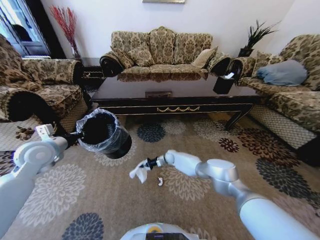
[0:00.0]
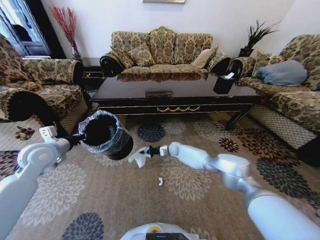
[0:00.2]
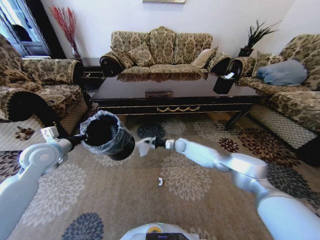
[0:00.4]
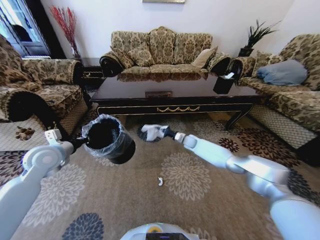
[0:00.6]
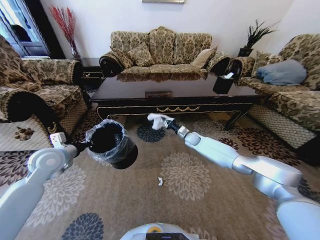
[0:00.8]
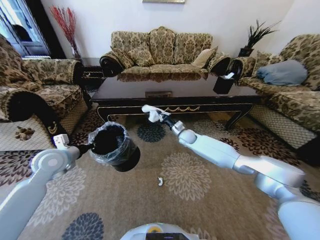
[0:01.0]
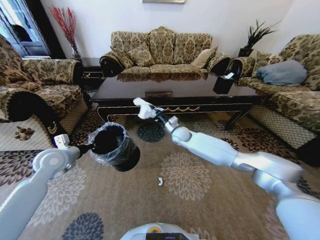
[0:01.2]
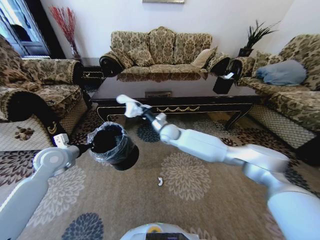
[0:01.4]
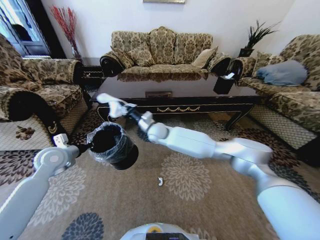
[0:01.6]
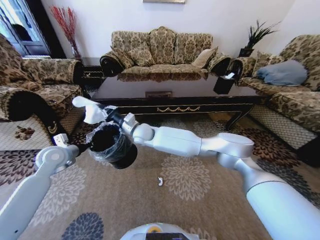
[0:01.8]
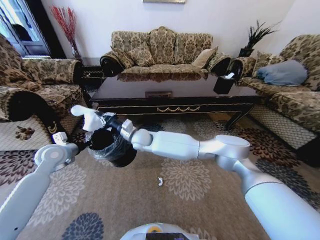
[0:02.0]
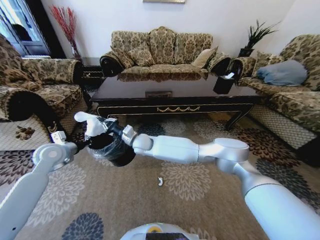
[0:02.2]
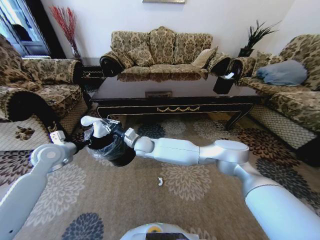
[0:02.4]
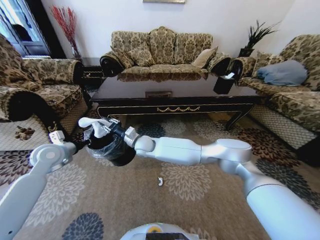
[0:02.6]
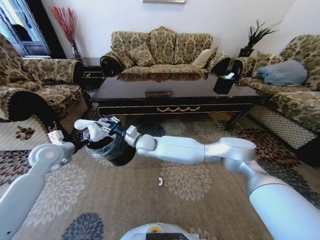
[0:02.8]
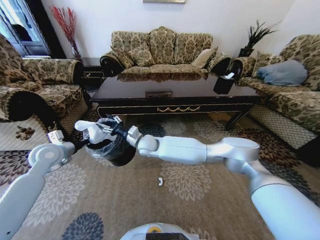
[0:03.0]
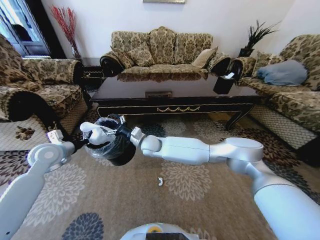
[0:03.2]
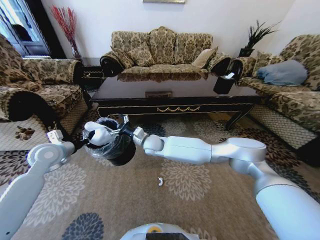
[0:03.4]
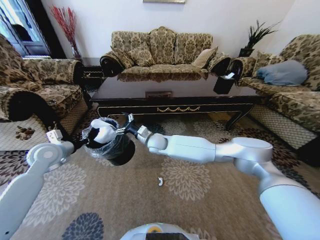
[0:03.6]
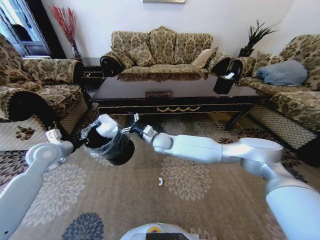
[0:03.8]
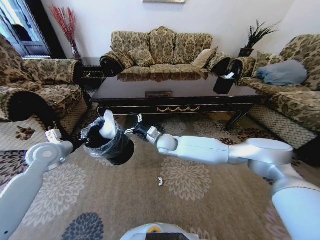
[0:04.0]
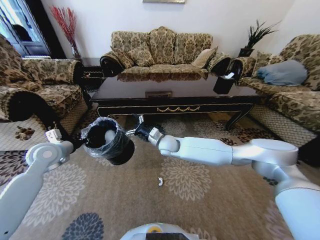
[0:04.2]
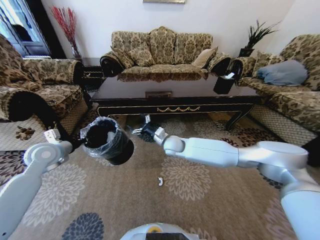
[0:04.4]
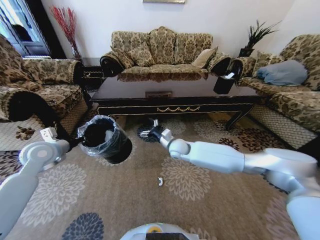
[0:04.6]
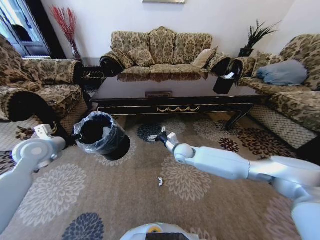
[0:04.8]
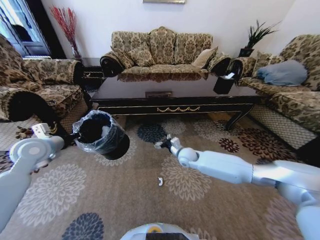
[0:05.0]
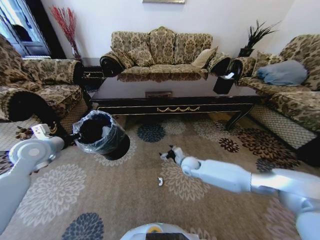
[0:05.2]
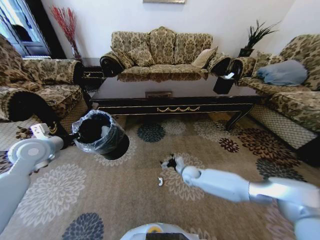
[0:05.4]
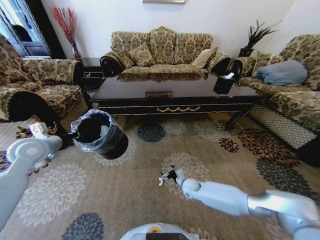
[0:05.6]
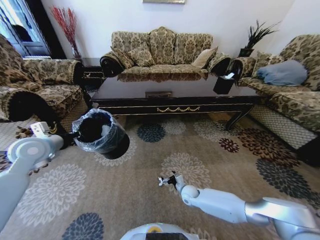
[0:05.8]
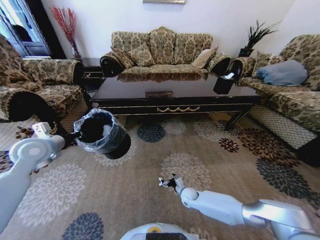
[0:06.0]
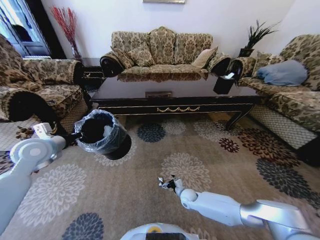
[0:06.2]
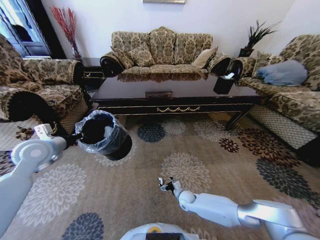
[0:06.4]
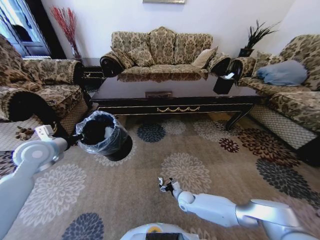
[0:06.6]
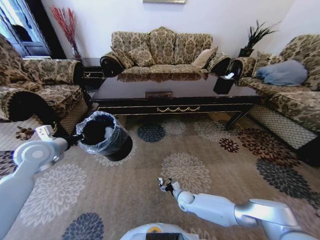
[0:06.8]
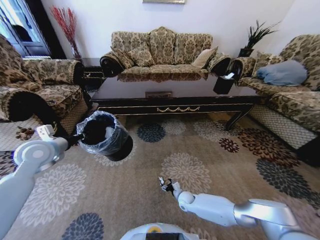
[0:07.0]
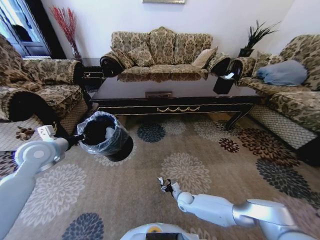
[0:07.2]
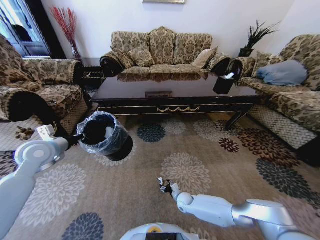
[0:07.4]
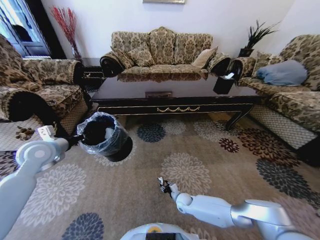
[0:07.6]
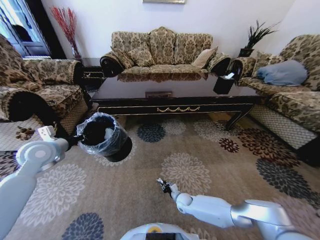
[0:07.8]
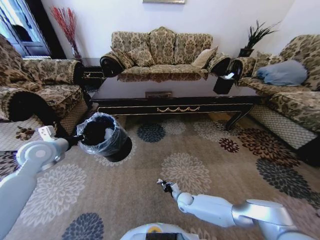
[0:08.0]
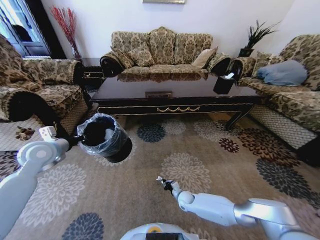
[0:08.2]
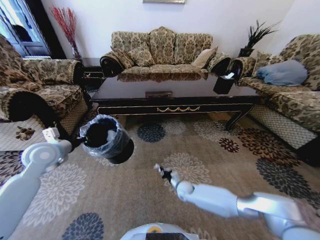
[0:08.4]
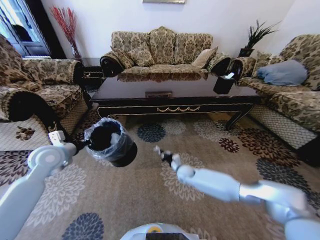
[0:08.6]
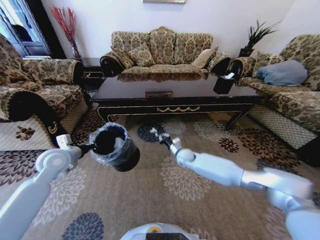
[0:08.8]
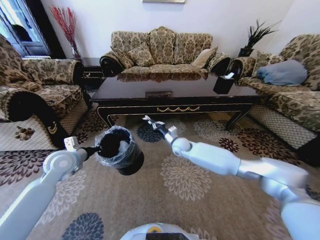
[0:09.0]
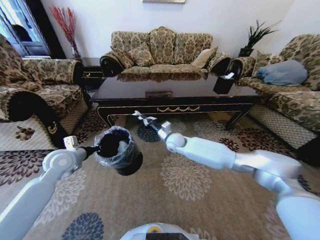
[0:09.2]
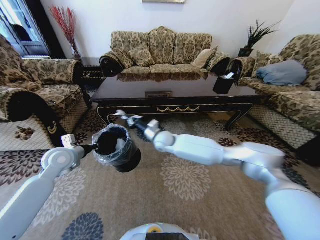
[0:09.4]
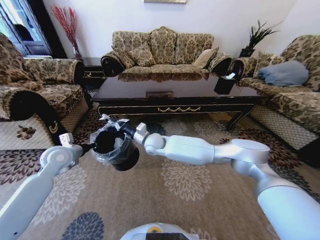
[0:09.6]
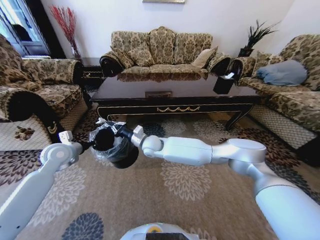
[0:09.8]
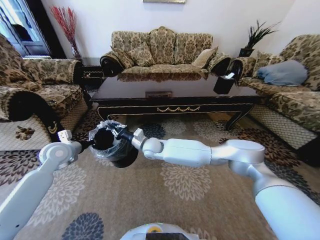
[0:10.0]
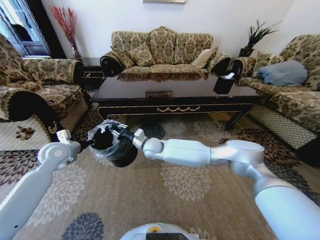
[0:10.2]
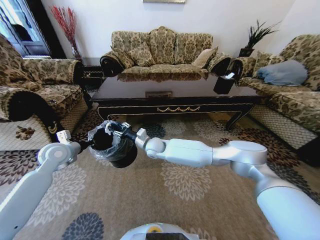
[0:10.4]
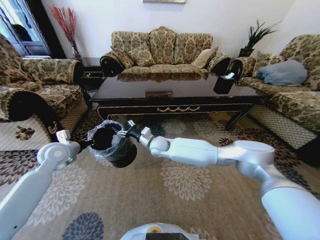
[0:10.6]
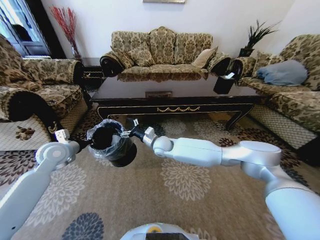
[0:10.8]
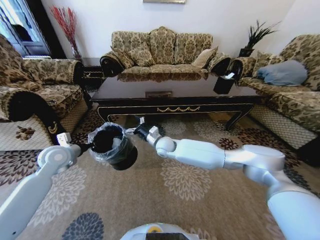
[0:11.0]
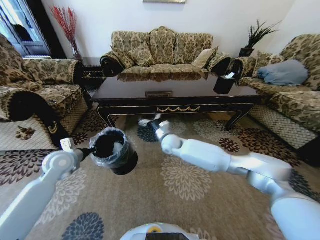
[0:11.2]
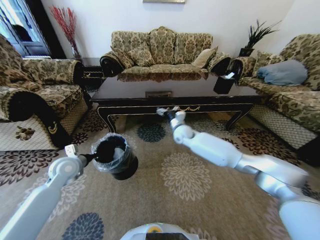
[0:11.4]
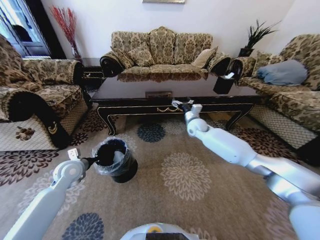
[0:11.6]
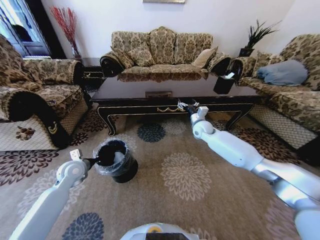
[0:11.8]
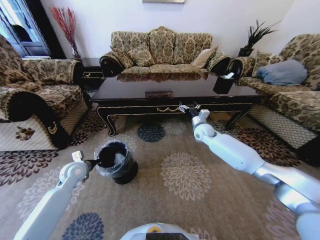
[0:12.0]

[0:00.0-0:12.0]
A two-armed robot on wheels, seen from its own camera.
Task of the whole recording: Move to the front of the table and pick up the trash from the floor, then place it into the trash bin.
0:00.0 to 0:01.6: The left gripper shifts by about 5 cm, while the right gripper travels upward and to the left by some 30 cm.
0:01.6 to 0:03.0: The right gripper travels backward by about 5 cm, and opens up.
0:03.0 to 0:04.4: The right gripper heads to the right, covering roughly 10 cm.
0:04.4 to 0:06.0: The right gripper travels downward and backward by about 30 cm.
0:06.0 to 0:07.6: The right gripper closes its fingers.
0:07.6 to 0:09.0: The right gripper goes about 35 cm upward and forward, and closes its fingers. Meanwhile the left gripper travels to the right by roughly 5 cm.
0:09.0 to 0:10.4: The right gripper goes approximately 15 cm to the left, and opens up.
0:10.4 to 0:12.0: The left gripper travels downward by about 10 cm; the right gripper shifts approximately 25 cm to the right, and opens its fingers.

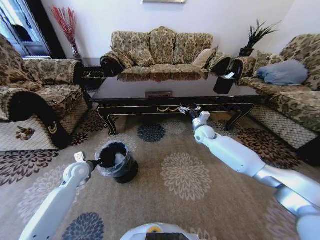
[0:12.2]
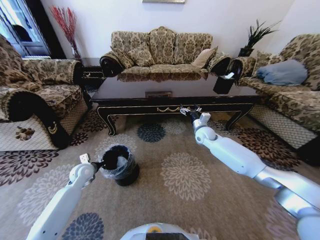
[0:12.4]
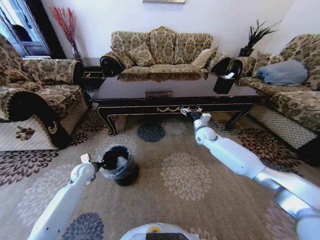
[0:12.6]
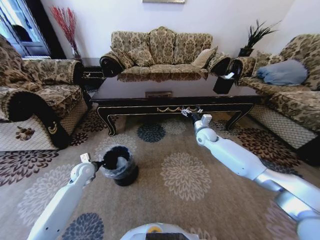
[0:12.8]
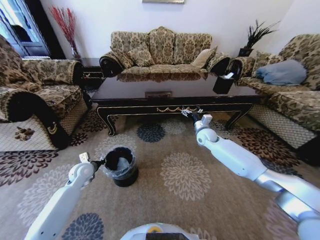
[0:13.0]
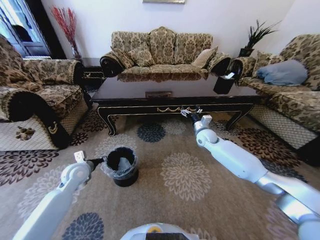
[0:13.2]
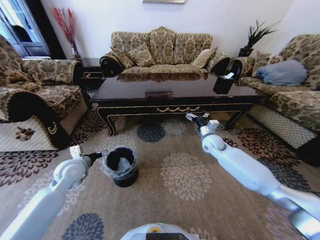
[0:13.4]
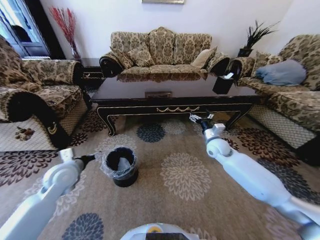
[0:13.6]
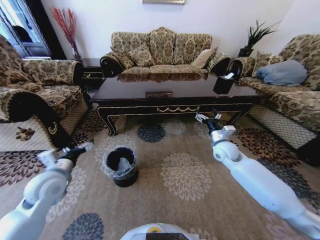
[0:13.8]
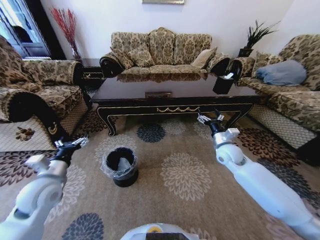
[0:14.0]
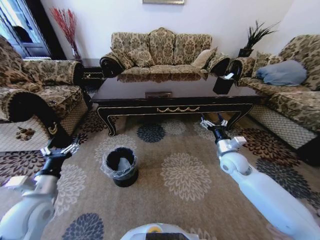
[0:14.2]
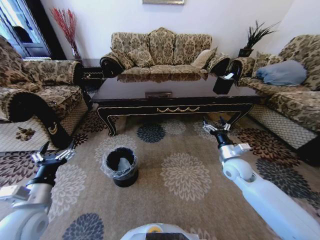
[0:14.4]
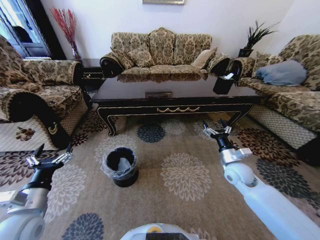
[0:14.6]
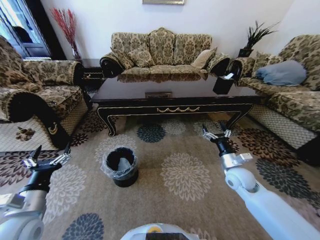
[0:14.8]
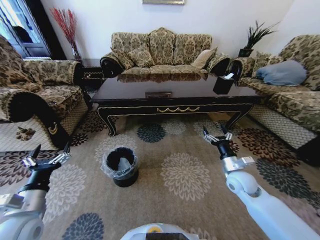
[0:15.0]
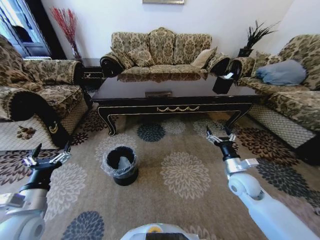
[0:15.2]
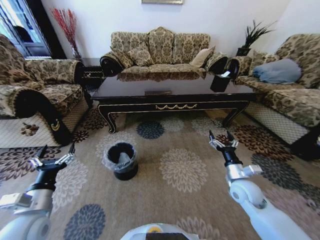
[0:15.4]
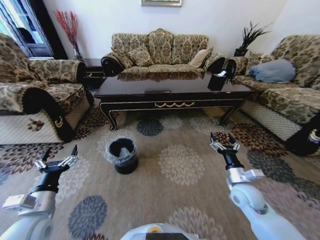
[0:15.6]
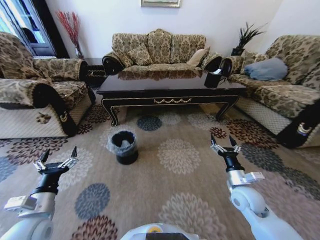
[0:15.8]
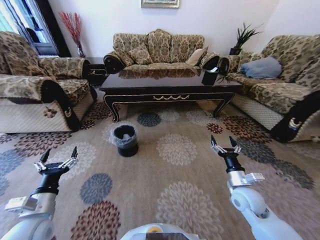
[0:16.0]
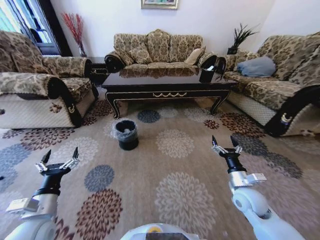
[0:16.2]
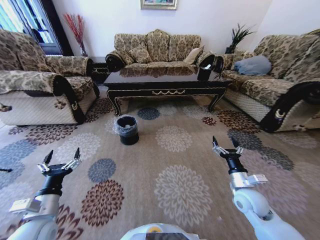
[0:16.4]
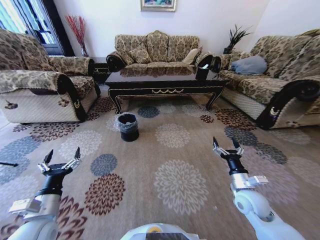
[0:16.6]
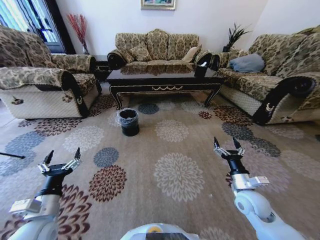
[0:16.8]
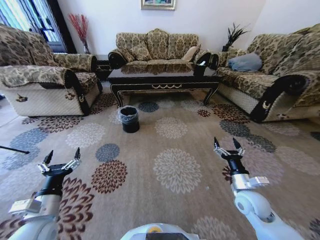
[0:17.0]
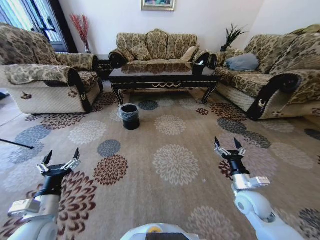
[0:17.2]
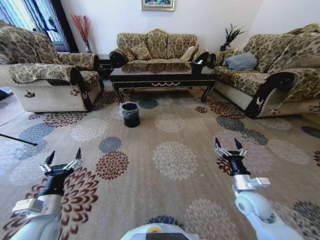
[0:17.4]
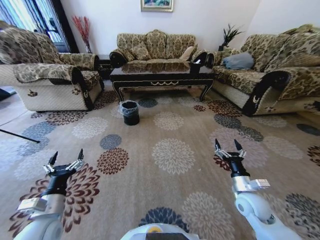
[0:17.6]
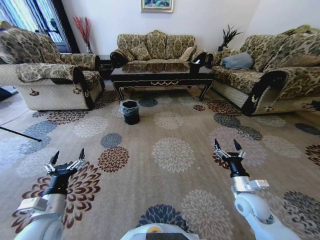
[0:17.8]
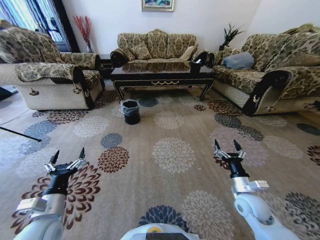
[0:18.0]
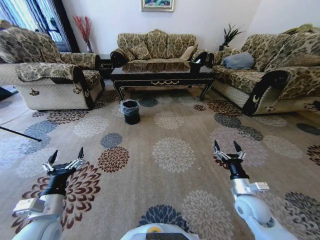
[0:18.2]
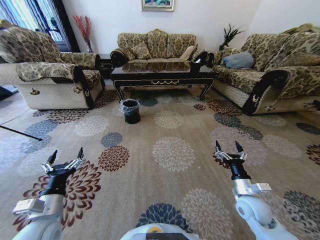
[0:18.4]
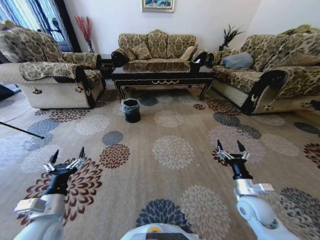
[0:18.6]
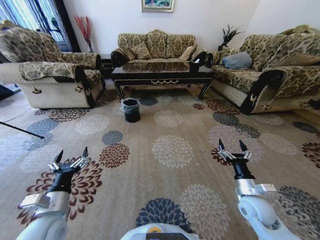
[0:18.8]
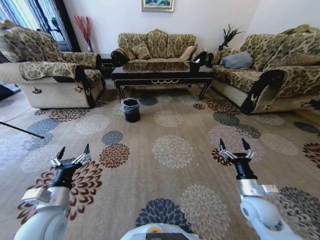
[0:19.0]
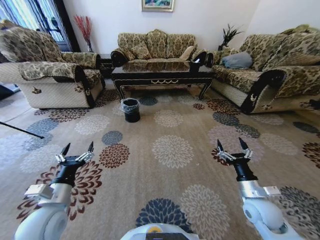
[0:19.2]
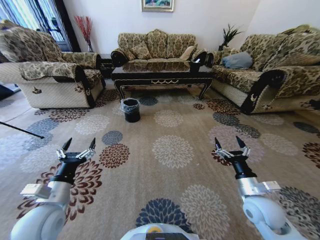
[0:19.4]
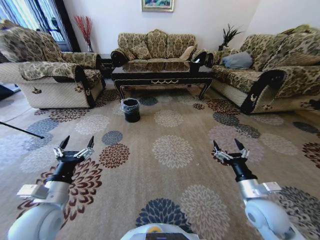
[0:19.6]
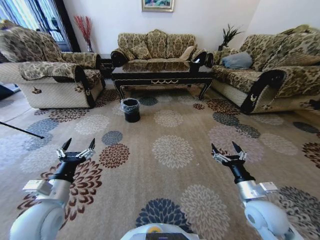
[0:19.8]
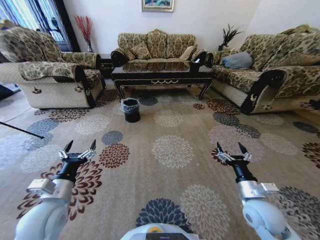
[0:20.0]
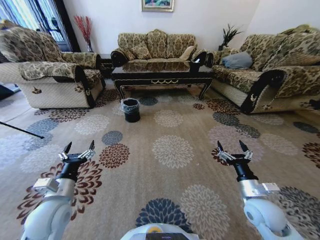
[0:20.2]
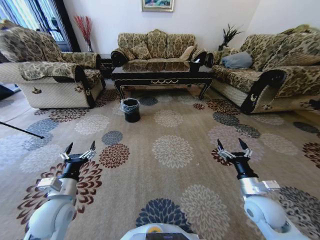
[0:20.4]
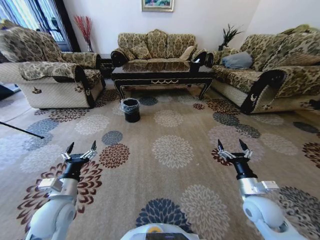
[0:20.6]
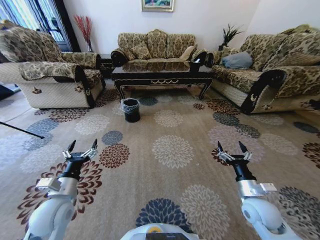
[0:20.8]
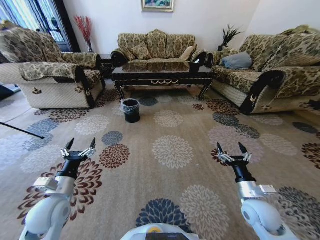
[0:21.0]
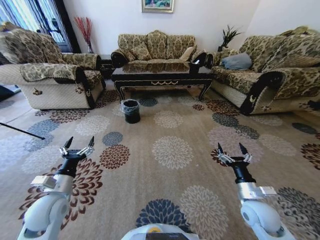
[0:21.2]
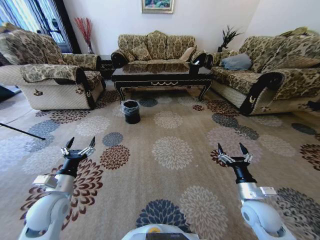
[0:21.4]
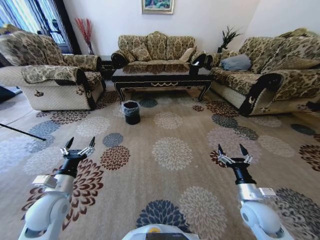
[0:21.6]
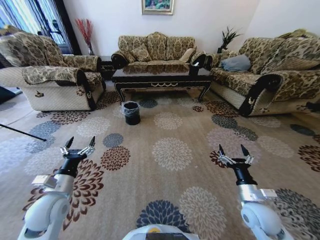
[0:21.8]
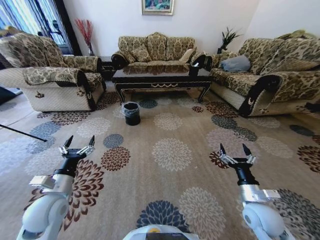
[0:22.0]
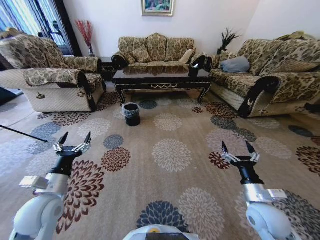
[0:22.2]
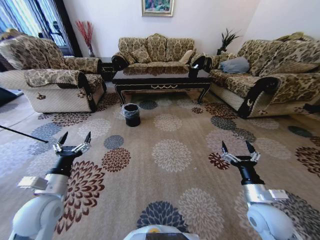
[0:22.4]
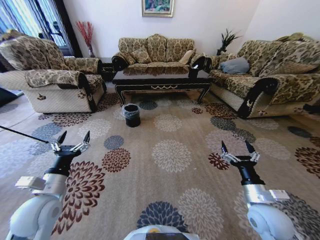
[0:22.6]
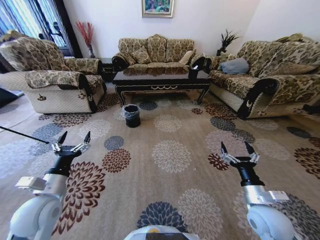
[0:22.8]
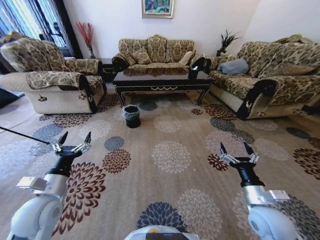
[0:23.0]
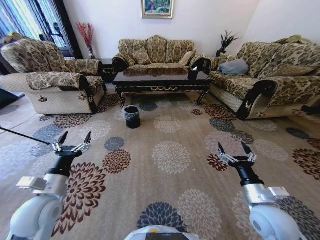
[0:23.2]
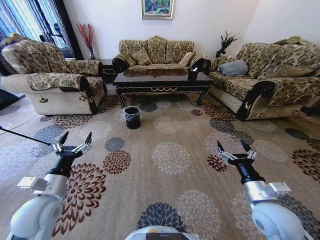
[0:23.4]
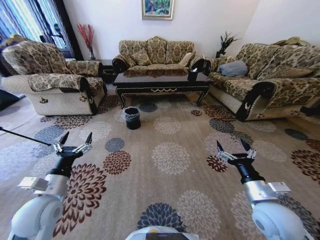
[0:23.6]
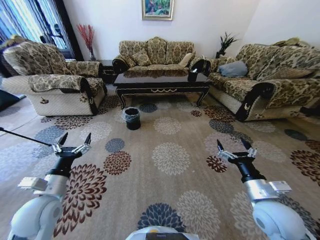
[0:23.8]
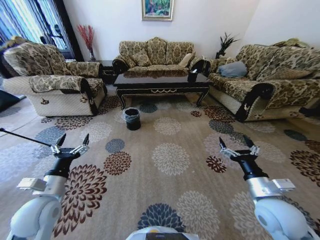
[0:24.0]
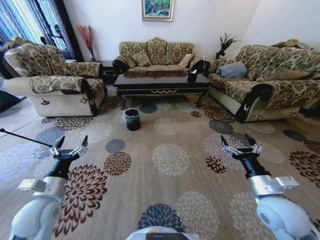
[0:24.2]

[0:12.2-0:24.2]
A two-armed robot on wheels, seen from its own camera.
Task of the whole recording: Move to the front of the table and pick up the trash from the floor, then place it into the trash bin.
0:12.2 to 0:13.8: The left gripper goes about 15 cm upward and backward, and opens. The right gripper moves backward and to the right, some 10 cm.
0:13.8 to 0:15.2: The left gripper moves backward, roughly 10 cm, while the right gripper shifts about 15 cm backward and downward.
0:15.2 to 0:16.6: The right gripper travels backward by about 5 cm.
0:18.2 to 0:19.8: The right gripper ends up roughly 5 cm from where it was.
0:19.8 to 0:21.2: The left gripper moves some 5 cm.
0:22.6 to 0:24.2: The right gripper shifts about 5 cm upward.
